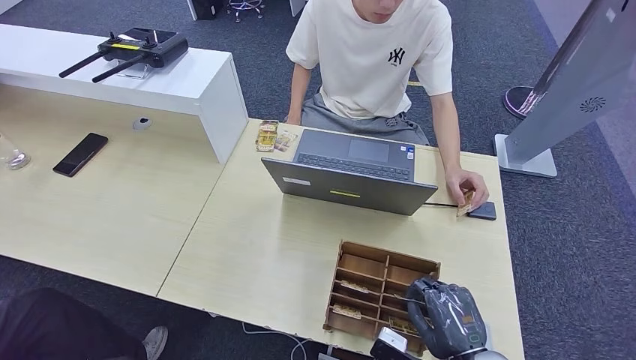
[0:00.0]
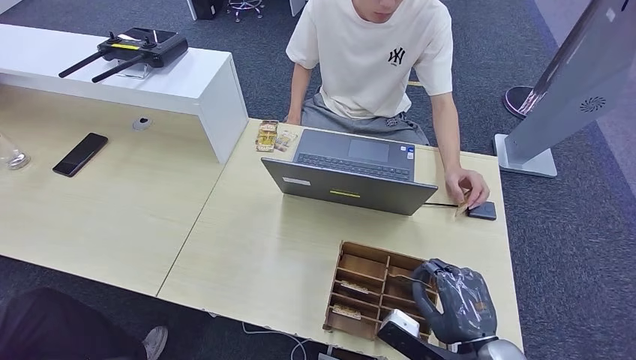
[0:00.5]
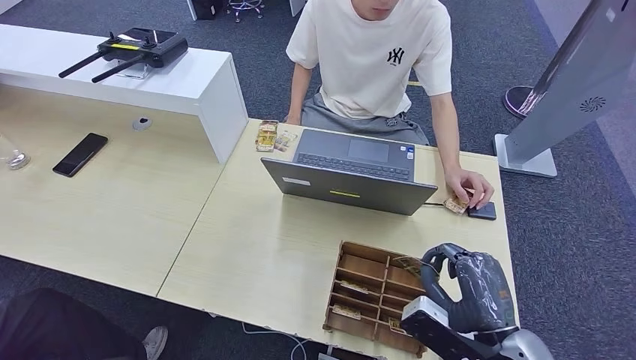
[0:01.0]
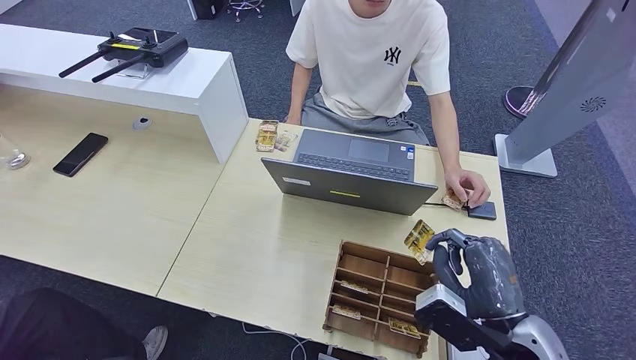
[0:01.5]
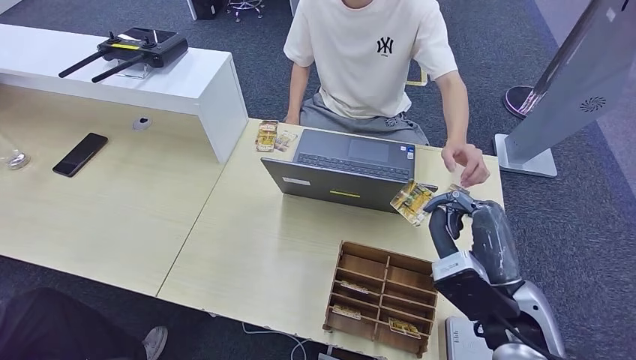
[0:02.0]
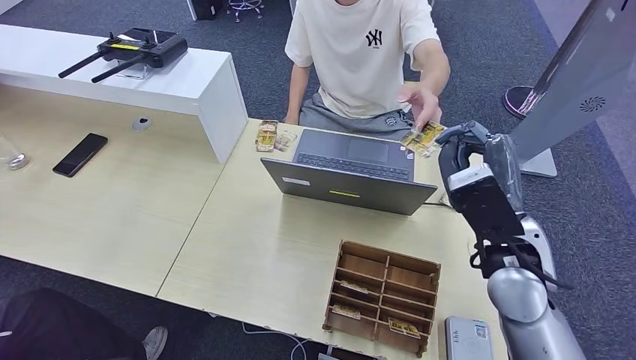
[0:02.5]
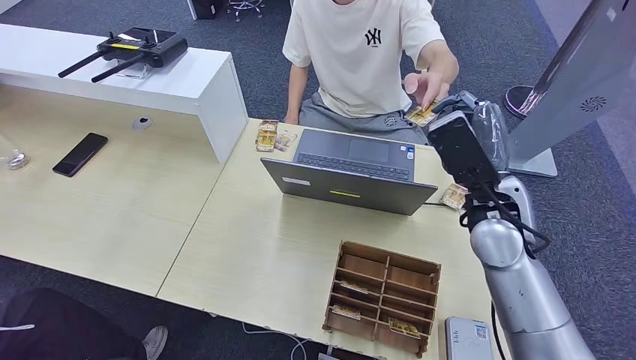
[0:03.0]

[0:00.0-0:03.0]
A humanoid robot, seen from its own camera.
Step, 0:02.0 to 0:03.0: Hand the room key to the person.
0:00.0 to 0:01.5: The right hand is displaced upward by about 10 cm.
0:01.5 to 0:03.0: The right hand is displaced forward and upward by some 20 cm.
